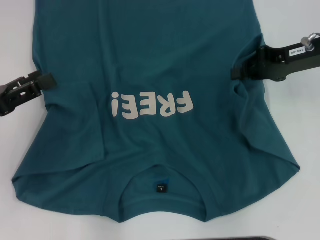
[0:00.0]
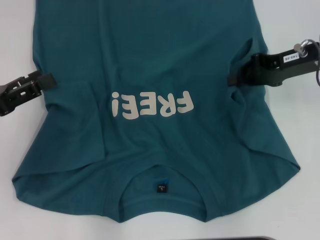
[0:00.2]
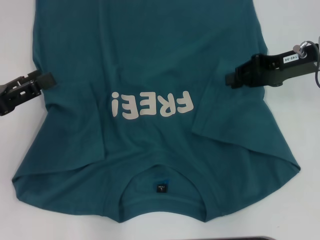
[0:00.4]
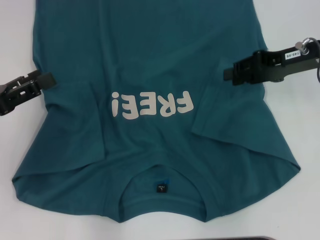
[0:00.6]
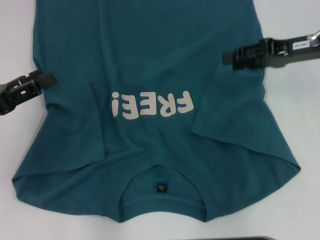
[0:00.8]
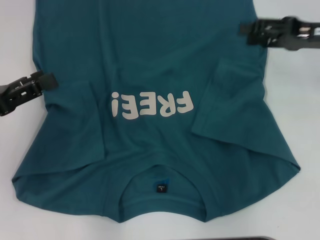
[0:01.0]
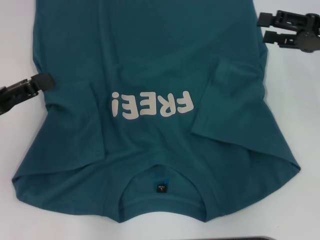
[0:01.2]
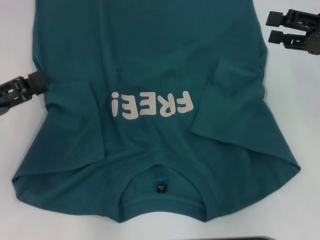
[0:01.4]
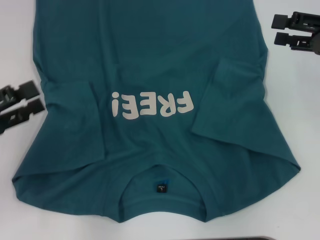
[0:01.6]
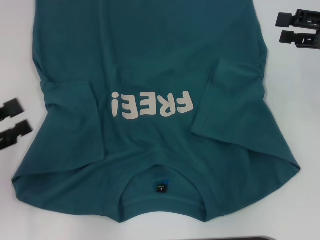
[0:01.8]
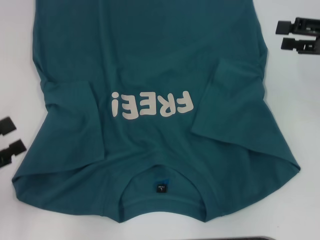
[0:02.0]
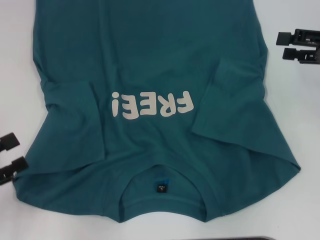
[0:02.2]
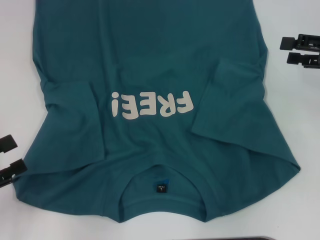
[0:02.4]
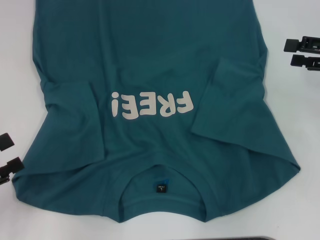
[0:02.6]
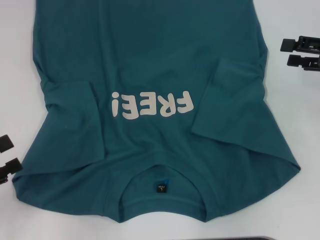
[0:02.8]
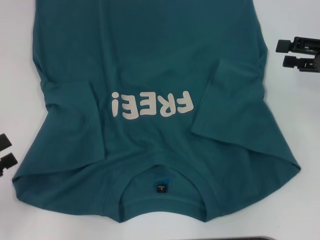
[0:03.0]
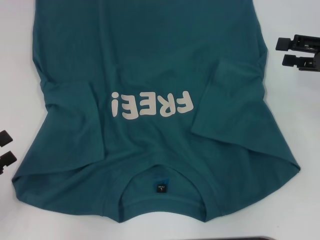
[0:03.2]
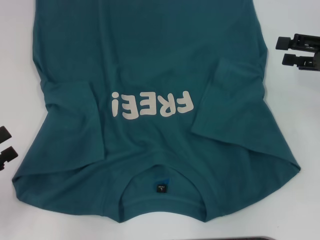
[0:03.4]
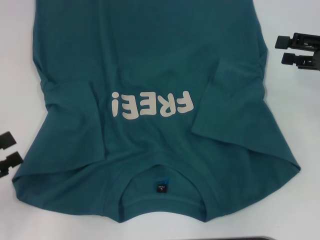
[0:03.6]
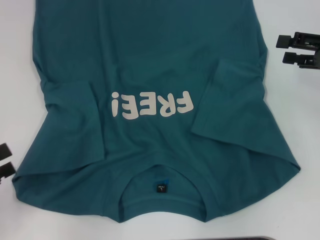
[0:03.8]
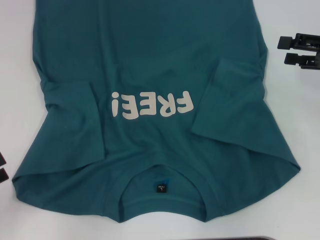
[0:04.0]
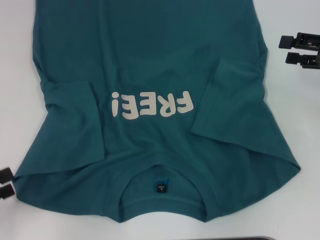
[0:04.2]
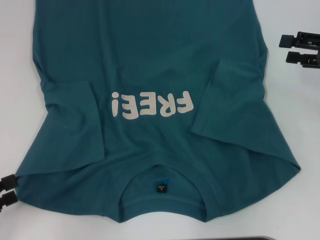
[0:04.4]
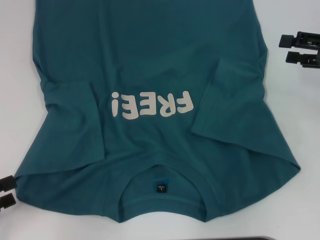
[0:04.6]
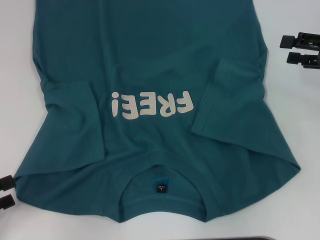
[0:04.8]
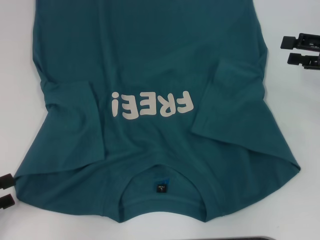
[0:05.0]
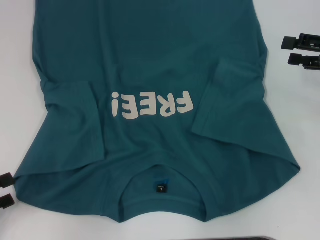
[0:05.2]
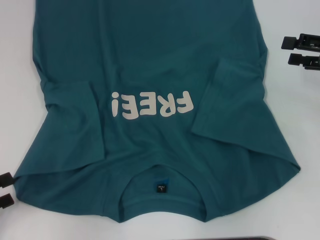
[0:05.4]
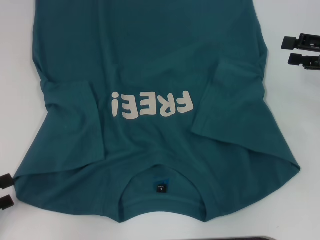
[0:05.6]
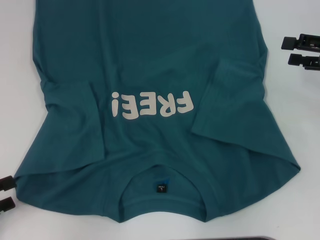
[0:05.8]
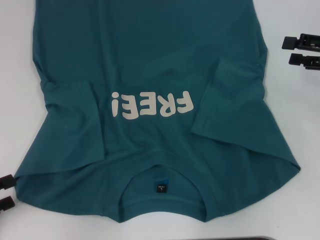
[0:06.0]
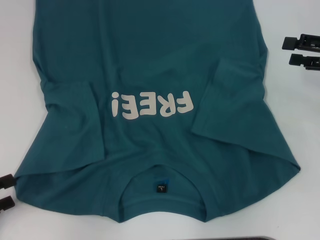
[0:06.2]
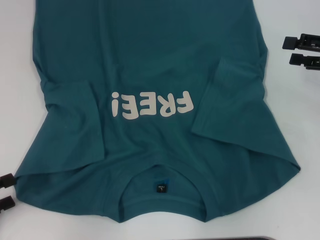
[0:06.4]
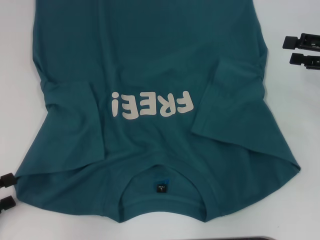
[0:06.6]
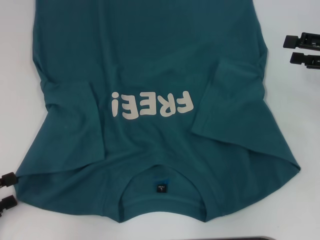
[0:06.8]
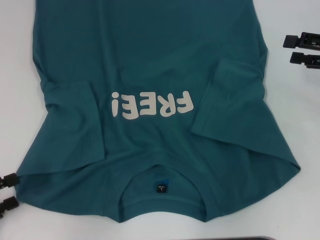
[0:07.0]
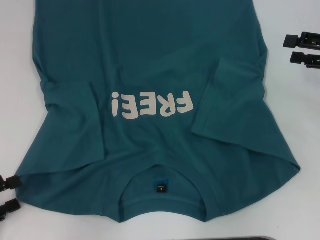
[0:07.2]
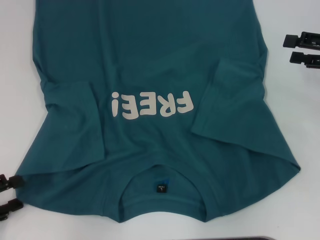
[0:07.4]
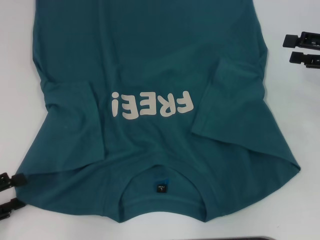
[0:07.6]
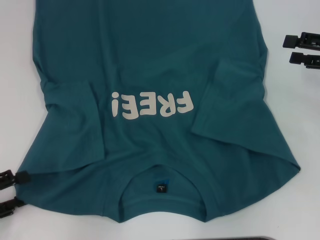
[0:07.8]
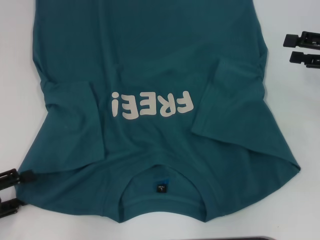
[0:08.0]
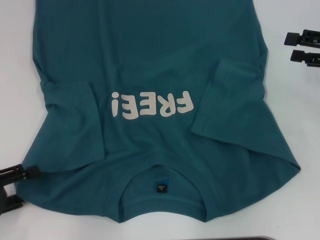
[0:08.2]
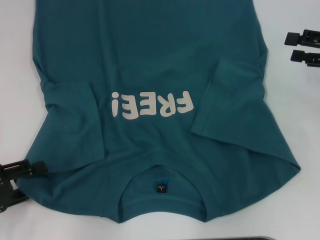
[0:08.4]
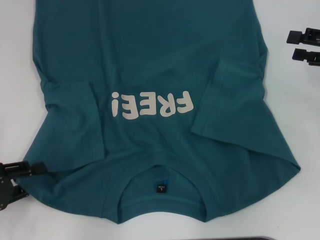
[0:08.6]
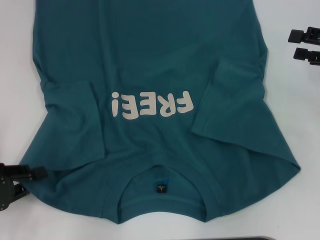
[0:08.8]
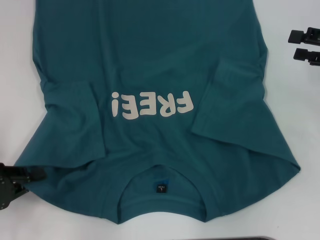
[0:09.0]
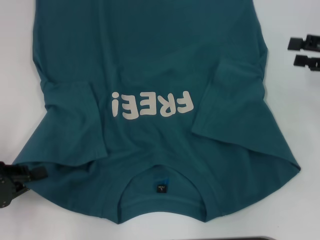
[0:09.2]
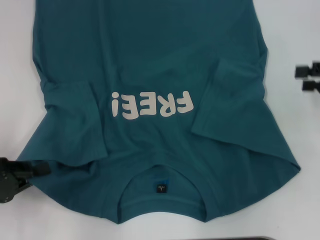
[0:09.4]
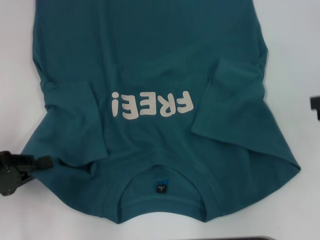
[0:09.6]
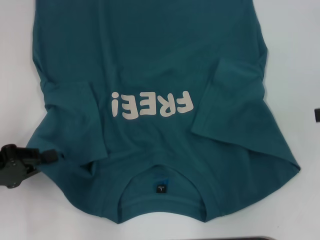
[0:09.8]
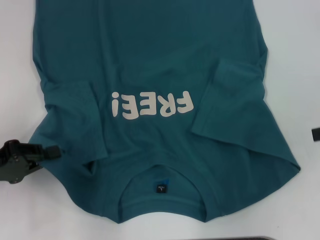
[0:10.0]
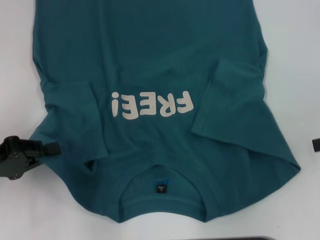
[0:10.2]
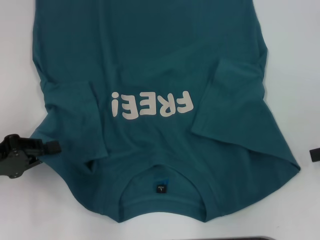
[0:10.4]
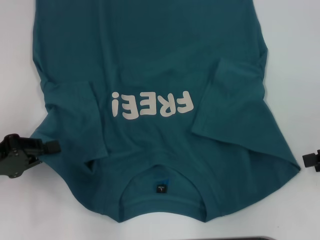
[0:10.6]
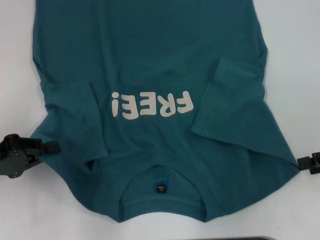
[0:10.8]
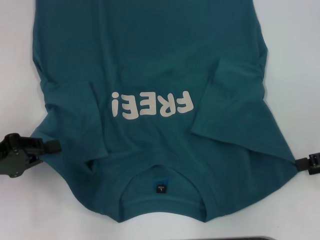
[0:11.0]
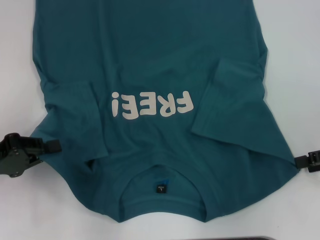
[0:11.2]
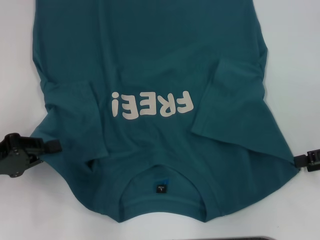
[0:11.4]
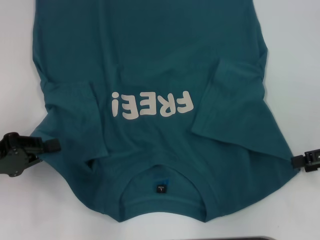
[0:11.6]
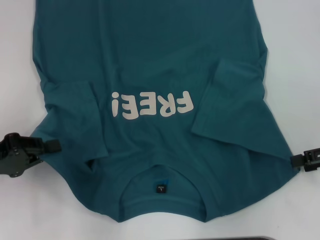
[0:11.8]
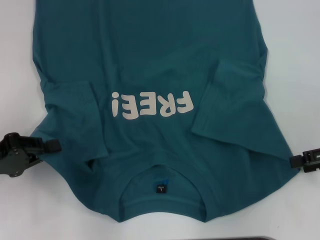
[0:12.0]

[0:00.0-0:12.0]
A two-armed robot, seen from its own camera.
Step, 0:00.6 to 0:09.0: Grab the bottom left corner with your left hand.
0:00.0 to 0:01.6: The right gripper is displaced to the right by roughly 5 cm, and opens up.
0:01.6 to 0:03.0: The left gripper shifts about 5 cm backward.
0:03.0 to 0:06.0: The grippers stay close to where they were, moving slightly.
0:06.0 to 0:07.6: There are only small adjustments of the grippers.
0:07.6 to 0:09.0: The left gripper closes its fingers.
0:09.0 to 0:10.4: The right gripper goes some 5 cm backward.
0:10.4 to 0:12.0: The grippers make only small movements.

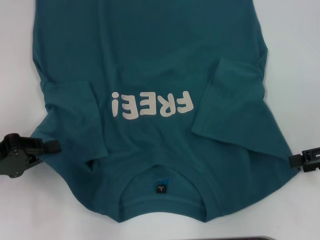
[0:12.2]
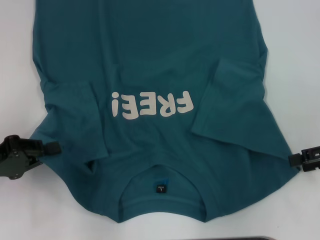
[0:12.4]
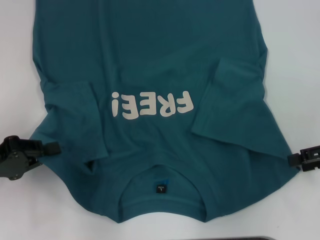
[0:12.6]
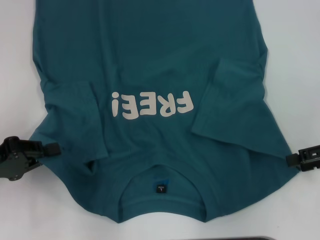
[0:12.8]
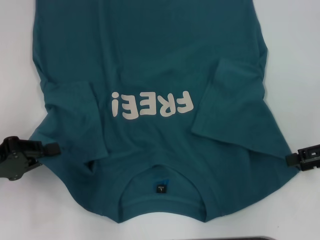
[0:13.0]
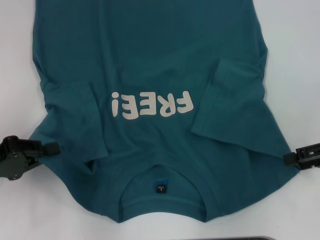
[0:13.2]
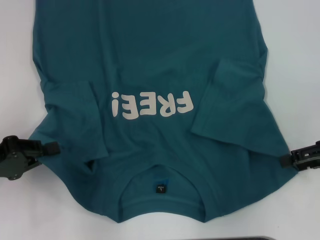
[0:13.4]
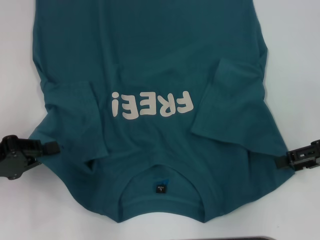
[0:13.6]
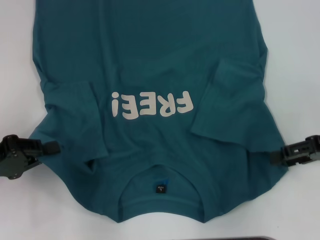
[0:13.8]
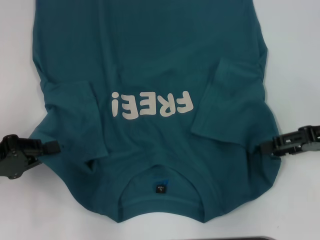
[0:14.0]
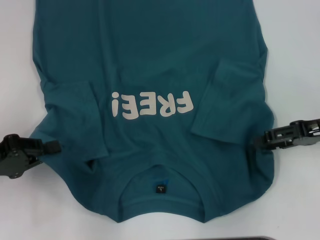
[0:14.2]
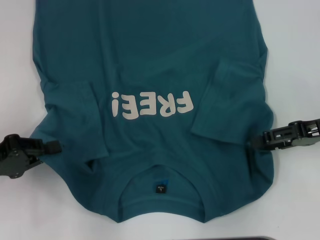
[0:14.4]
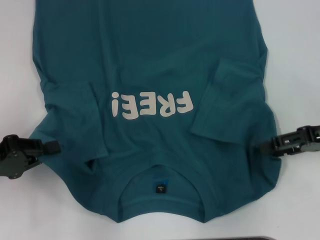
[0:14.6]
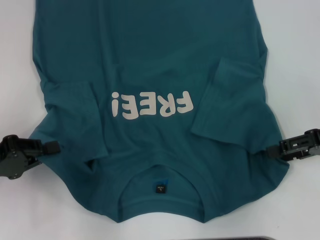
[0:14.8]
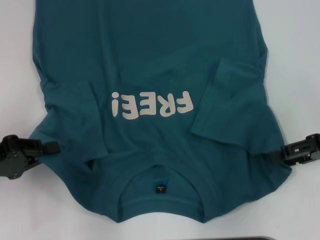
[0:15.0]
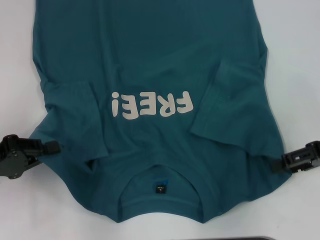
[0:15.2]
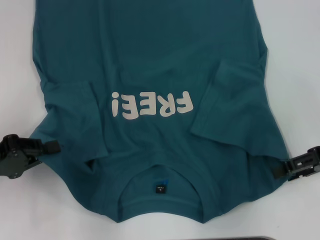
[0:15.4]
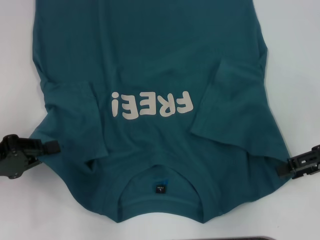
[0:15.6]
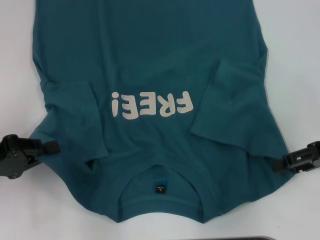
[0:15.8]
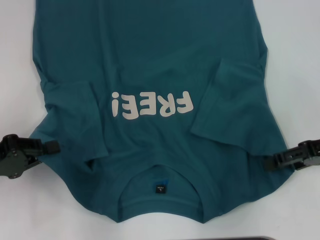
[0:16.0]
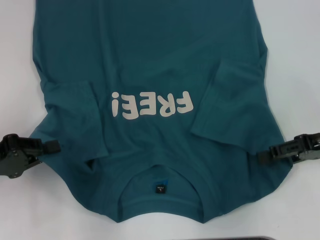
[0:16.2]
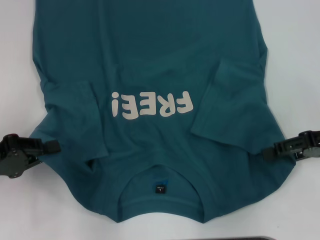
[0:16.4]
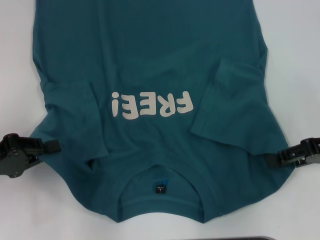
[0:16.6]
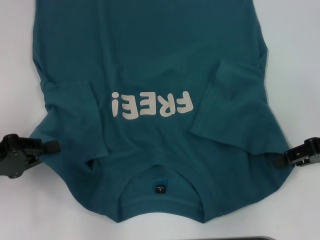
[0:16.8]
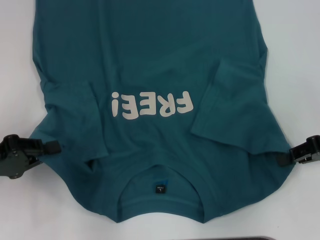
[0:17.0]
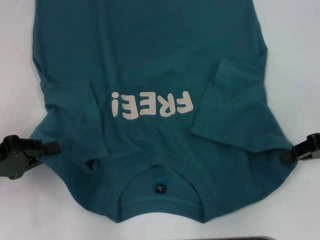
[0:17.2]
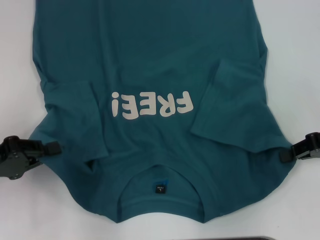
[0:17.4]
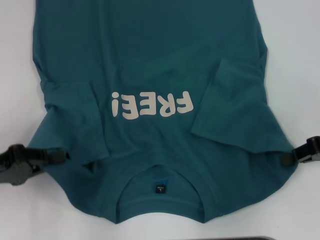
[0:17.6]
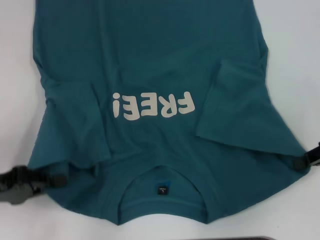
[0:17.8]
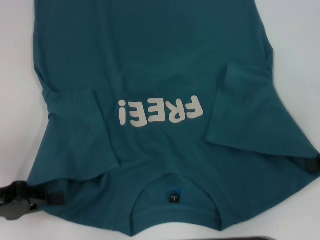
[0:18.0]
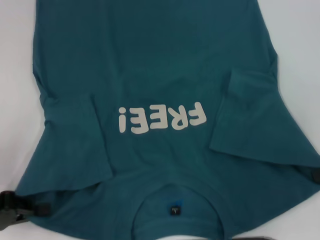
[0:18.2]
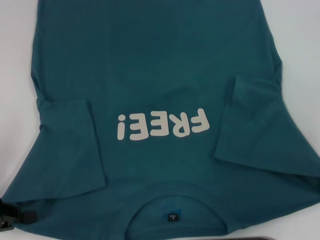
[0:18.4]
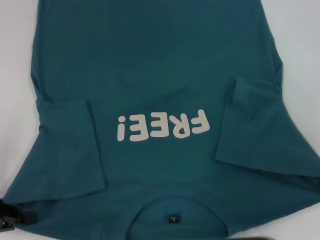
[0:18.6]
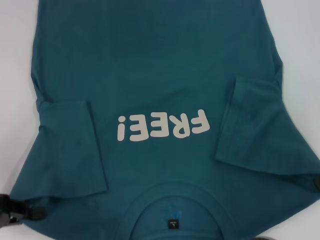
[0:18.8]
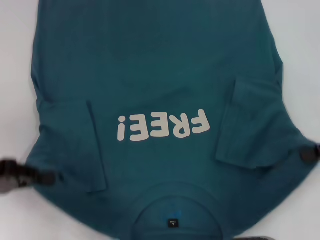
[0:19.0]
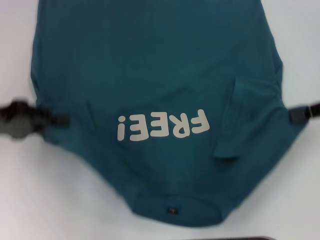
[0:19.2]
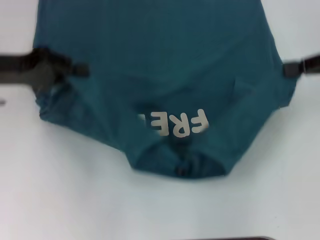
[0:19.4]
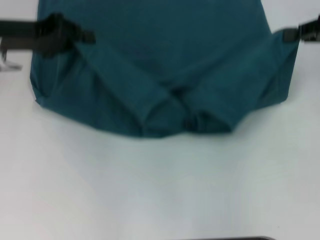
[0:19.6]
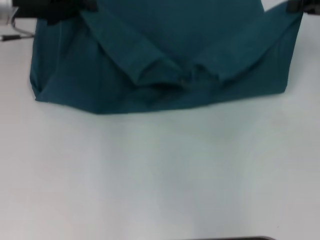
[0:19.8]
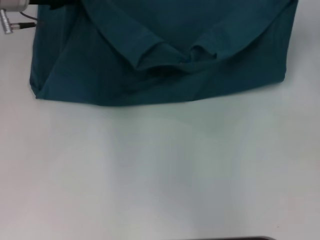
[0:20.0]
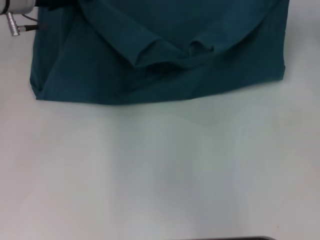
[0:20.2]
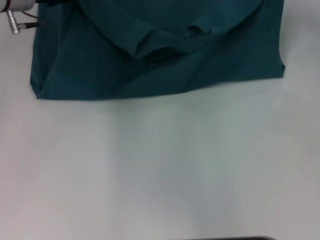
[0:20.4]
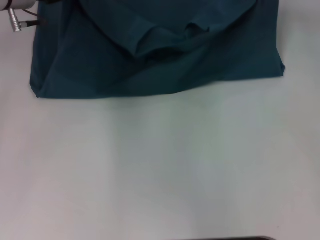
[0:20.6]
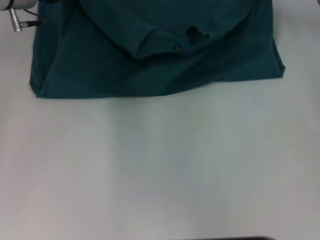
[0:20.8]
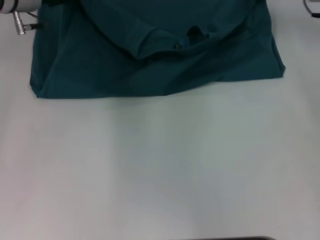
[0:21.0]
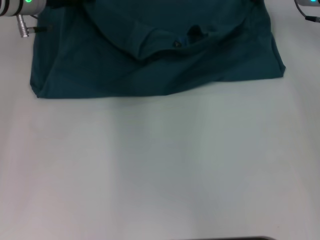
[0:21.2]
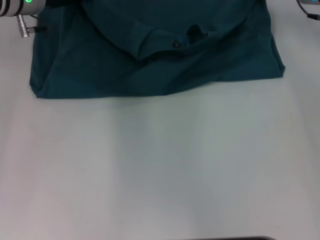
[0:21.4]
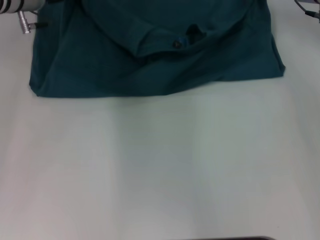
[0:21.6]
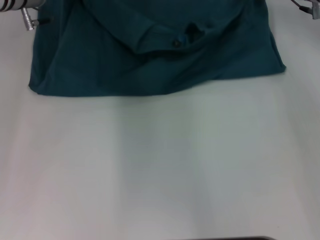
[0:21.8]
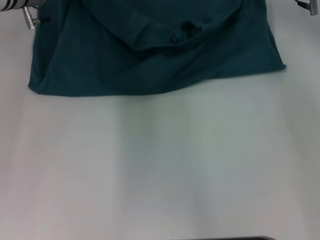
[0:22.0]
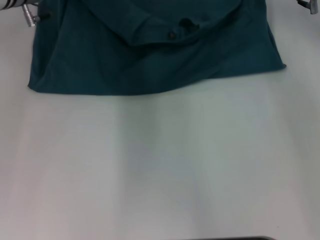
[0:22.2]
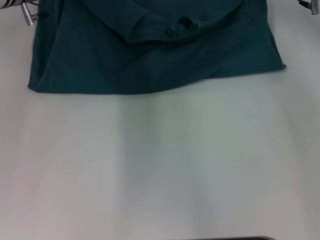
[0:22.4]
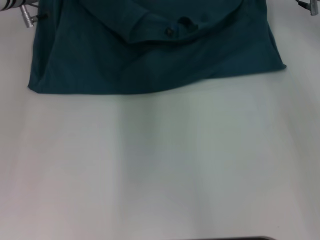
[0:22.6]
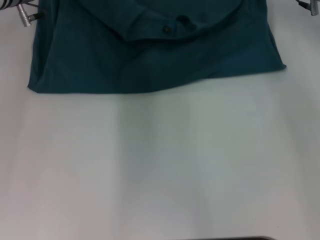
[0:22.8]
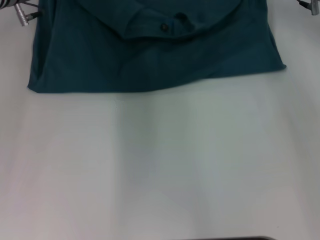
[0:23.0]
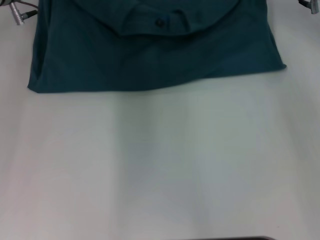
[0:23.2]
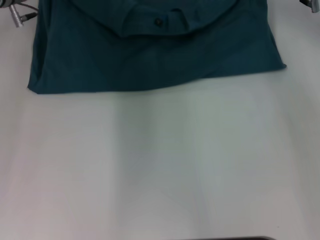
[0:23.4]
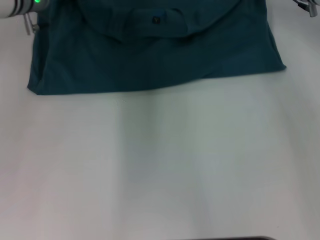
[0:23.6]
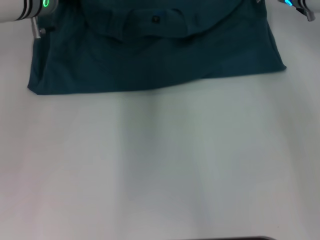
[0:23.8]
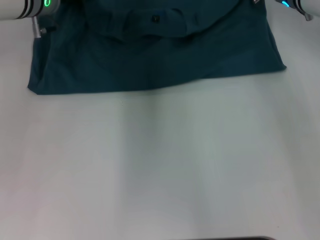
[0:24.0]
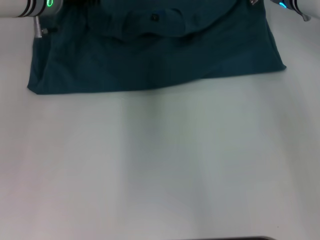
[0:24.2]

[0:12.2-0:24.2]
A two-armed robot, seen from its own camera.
0:12.2 to 0:16.6: The grippers stay close to where they were, moving slightly.
0:16.6 to 0:18.2: The right gripper closes.
0:18.2 to 0:19.8: The right gripper goes about 15 cm forward and upward. The left gripper shifts some 25 cm forward, upward and to the right.
0:19.8 to 0:21.2: The left gripper moves about 5 cm, while the right gripper shifts approximately 10 cm to the left and forward.
0:21.2 to 0:22.6: The grippers move only a little.
0:22.6 to 0:24.2: The grippers stay close to where they were, moving slightly.
